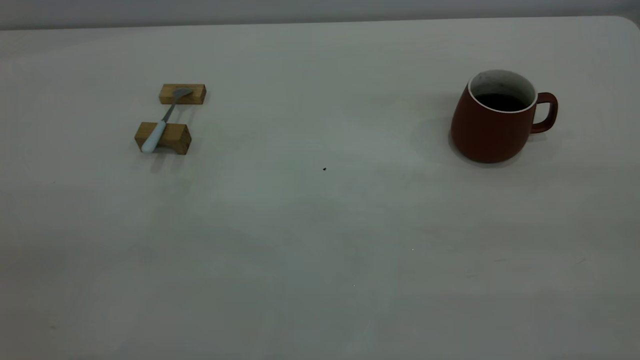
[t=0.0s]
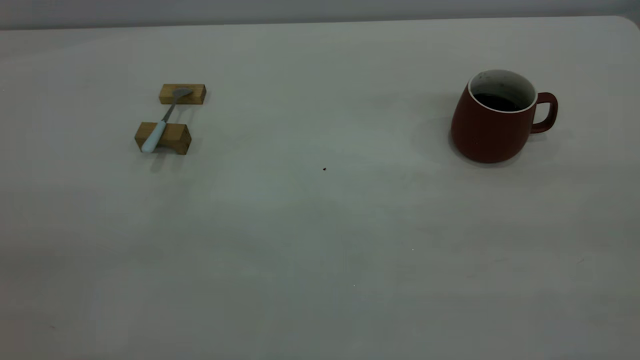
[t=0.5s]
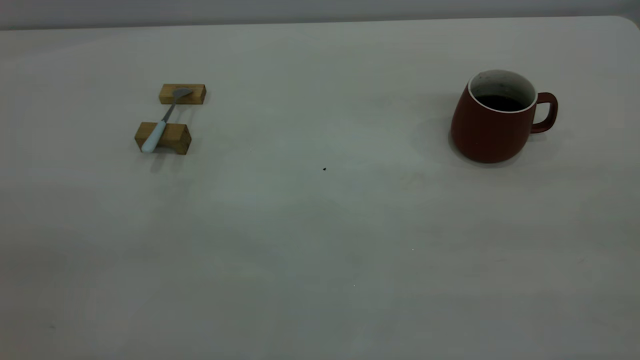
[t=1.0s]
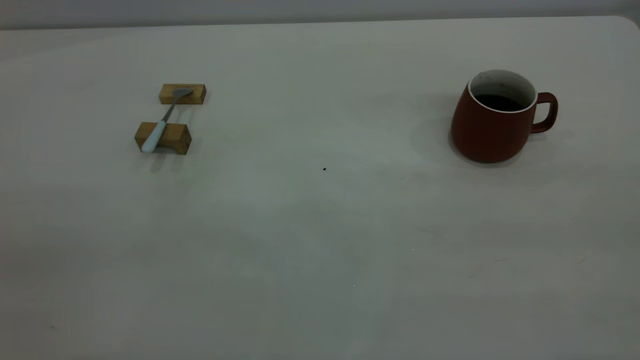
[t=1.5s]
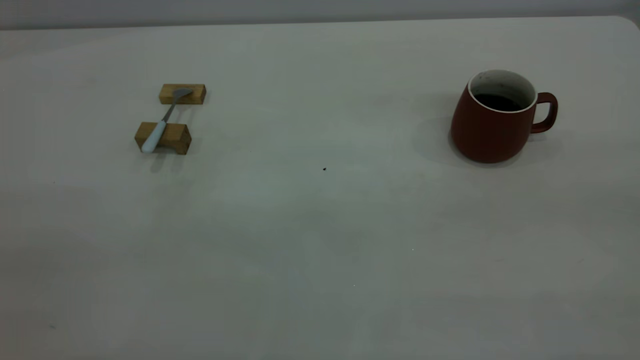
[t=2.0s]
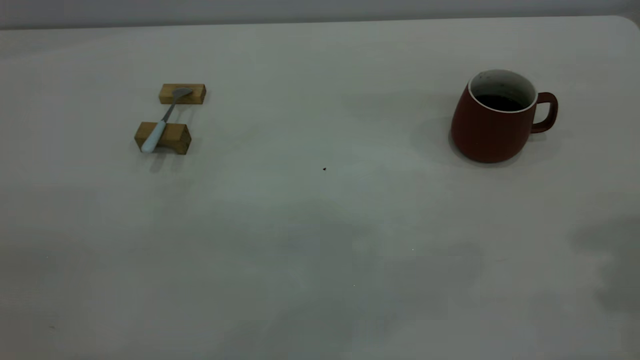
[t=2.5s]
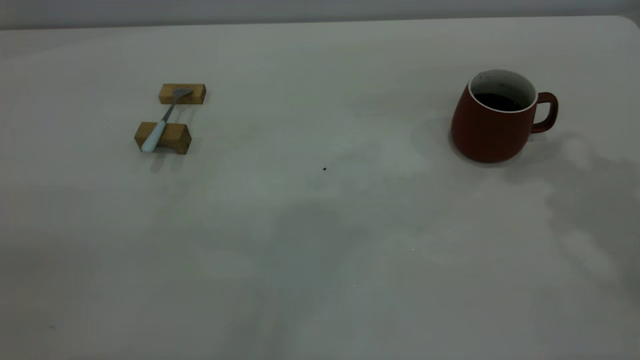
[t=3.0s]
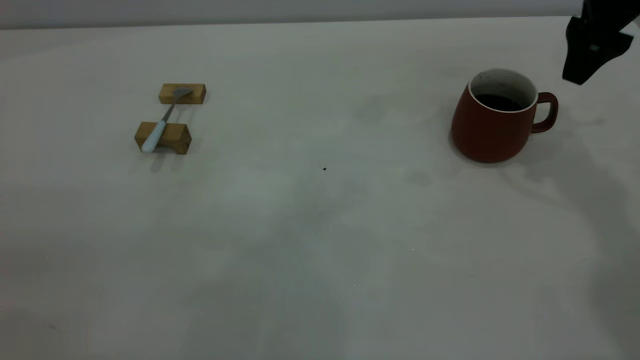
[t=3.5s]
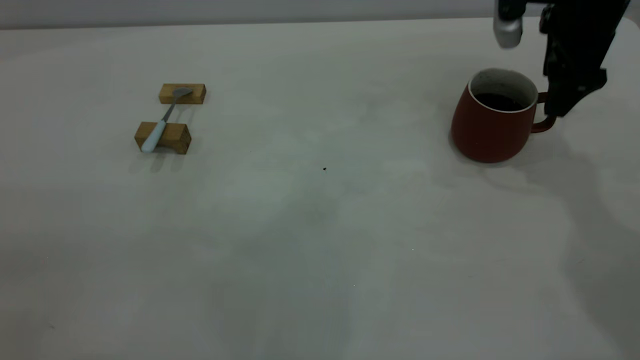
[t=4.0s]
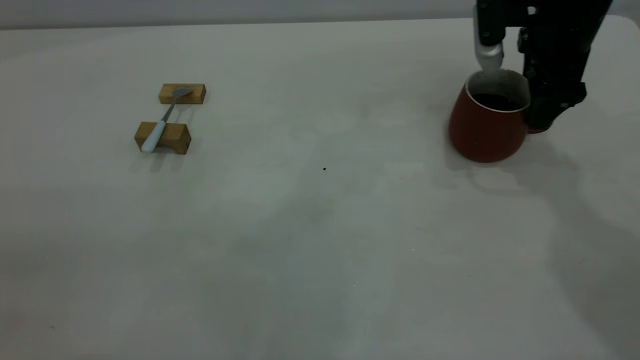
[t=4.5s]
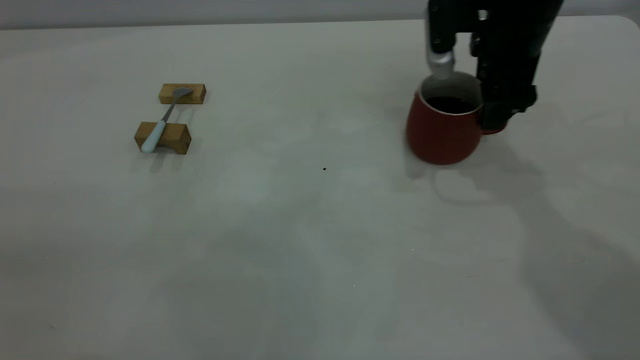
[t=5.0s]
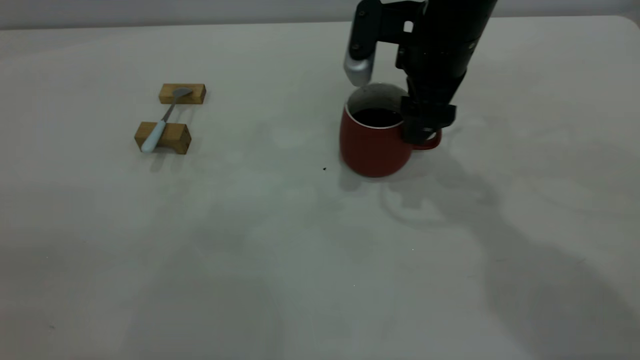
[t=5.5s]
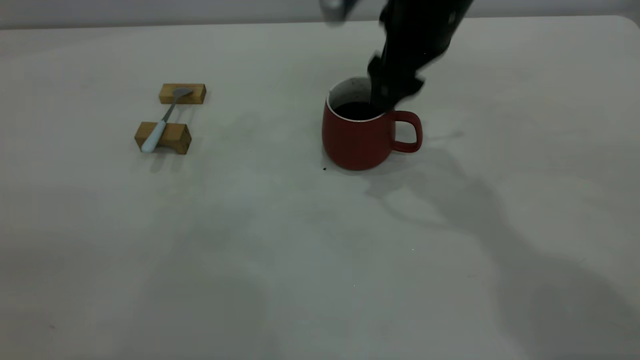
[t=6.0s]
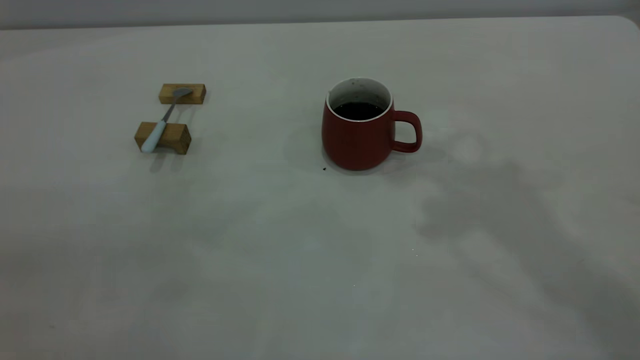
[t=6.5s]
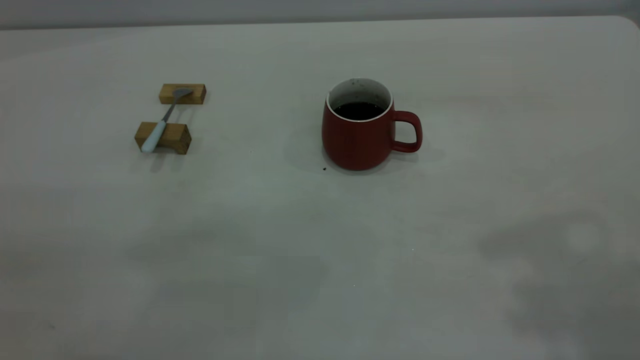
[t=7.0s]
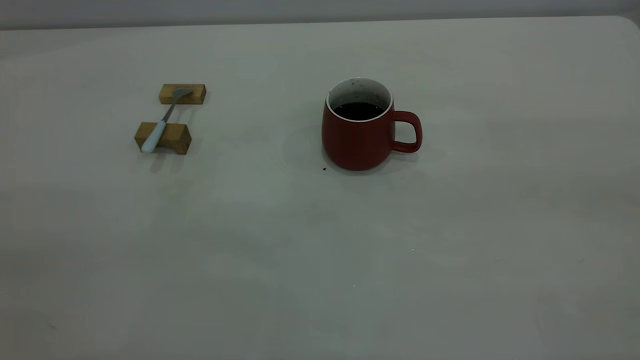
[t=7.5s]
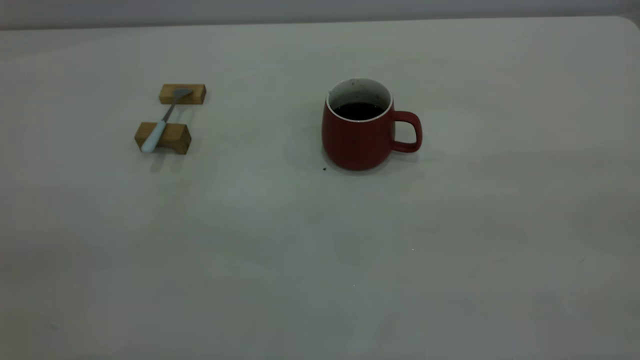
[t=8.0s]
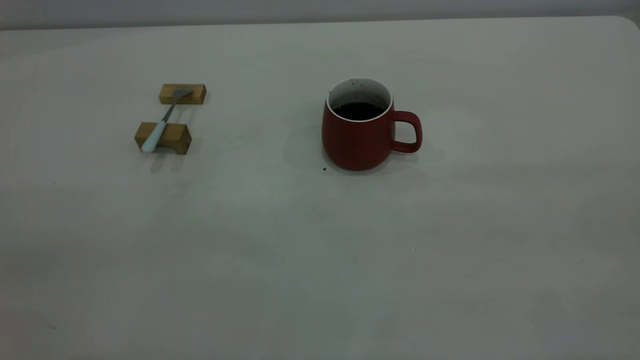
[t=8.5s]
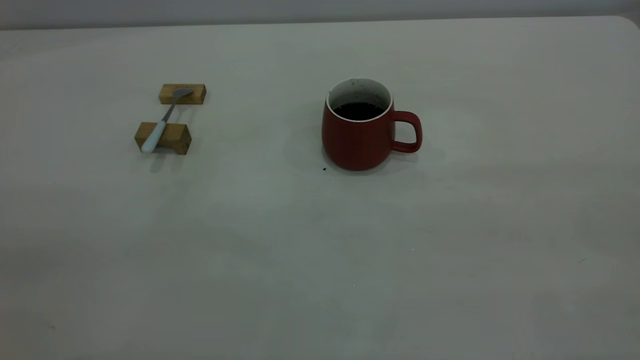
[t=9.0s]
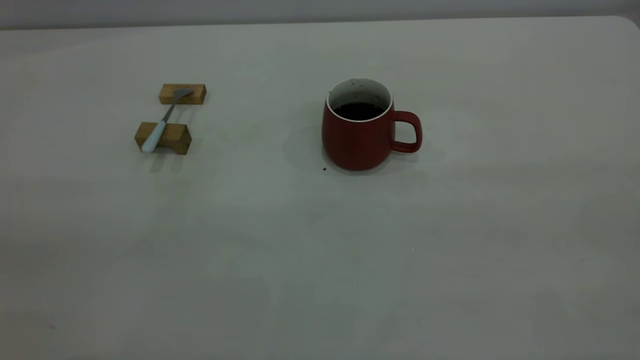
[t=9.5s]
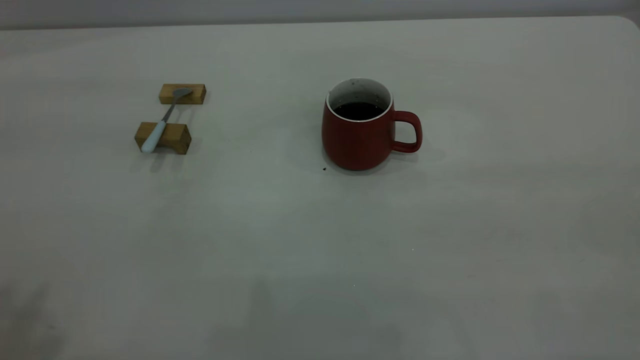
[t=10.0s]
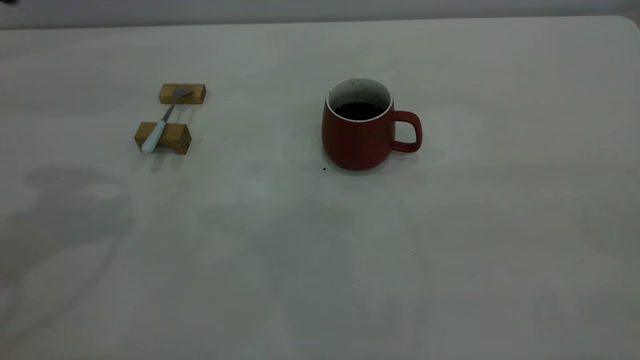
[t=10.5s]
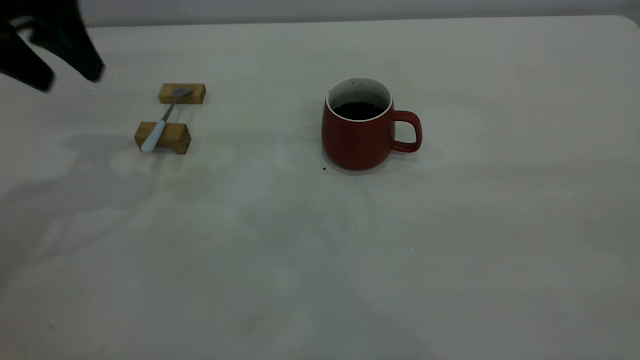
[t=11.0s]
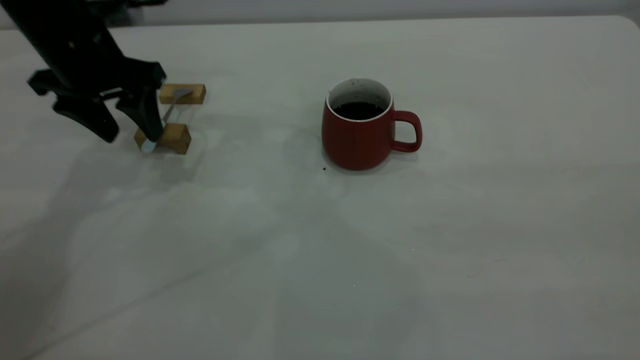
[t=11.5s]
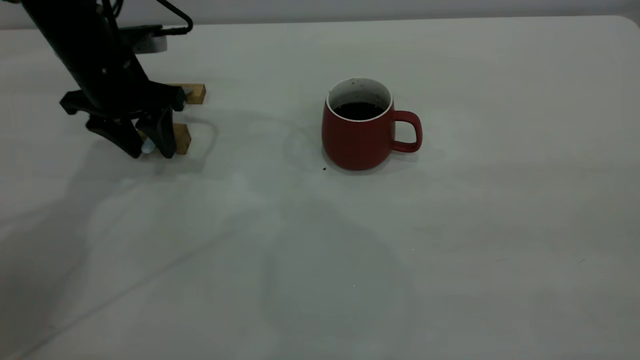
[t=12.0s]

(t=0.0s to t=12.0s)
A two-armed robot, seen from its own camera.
Step, t=0.0s - t=6.0s: Move the cup with coffee to the center of view.
t=2.0s - t=4.0s: The right gripper heads forward and downward, covering some 50 cm.
t=4.0s - t=6.0s: The right gripper shifts about 15 cm to the left.
t=6.0s - t=8.0s: The right gripper is displaced backward, to the right and upward by approximately 50 cm.
t=10.0s - t=12.0s: The left gripper moves downward and forward, about 40 cm.

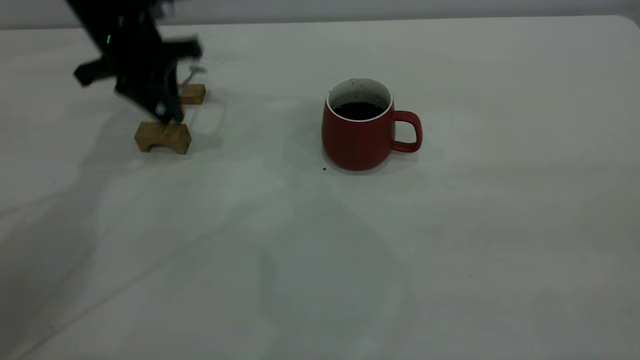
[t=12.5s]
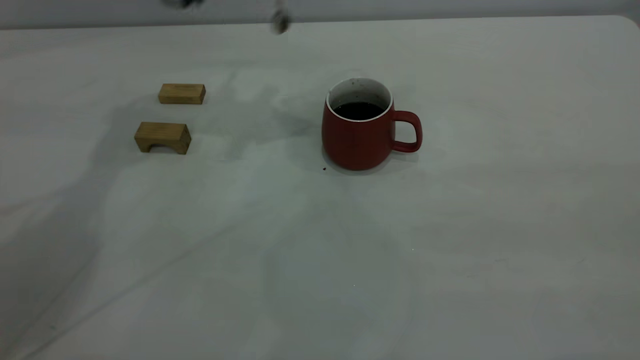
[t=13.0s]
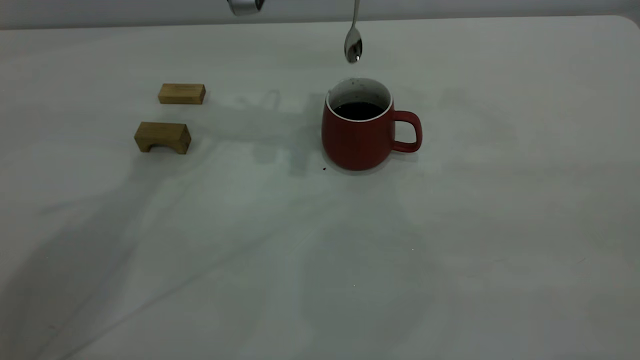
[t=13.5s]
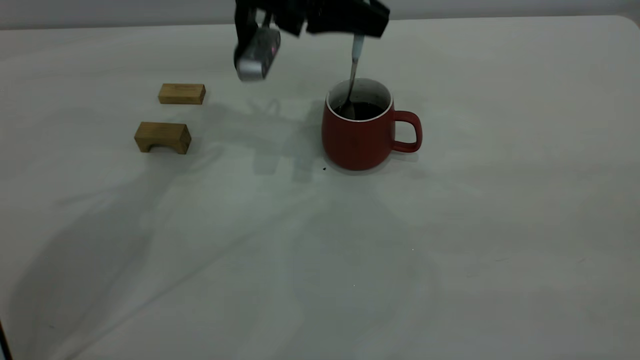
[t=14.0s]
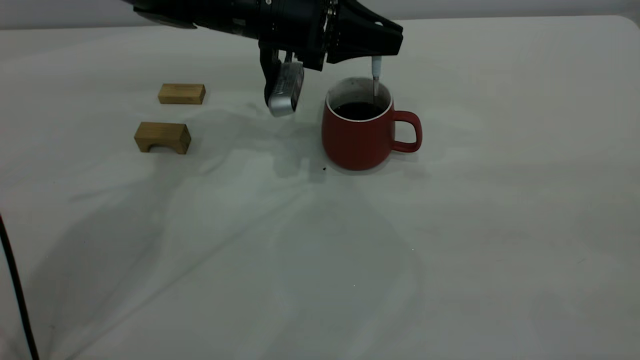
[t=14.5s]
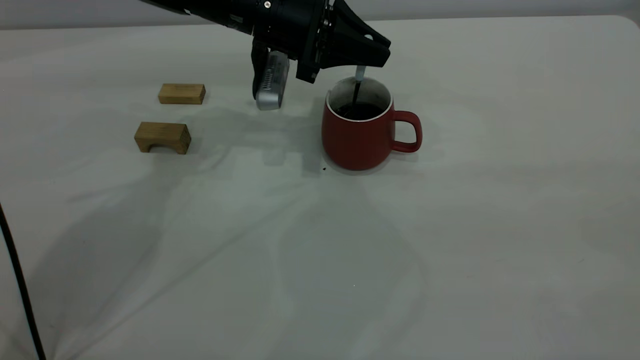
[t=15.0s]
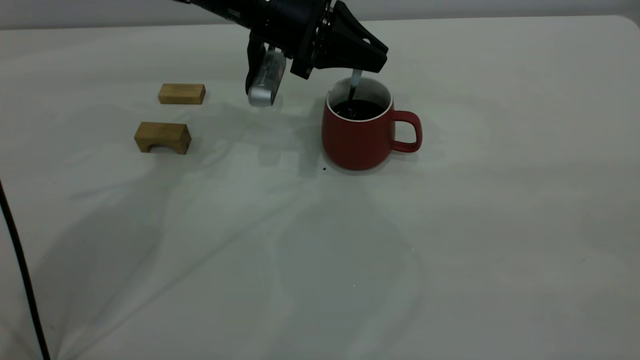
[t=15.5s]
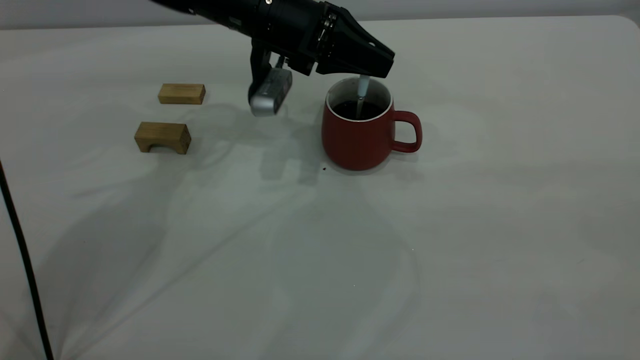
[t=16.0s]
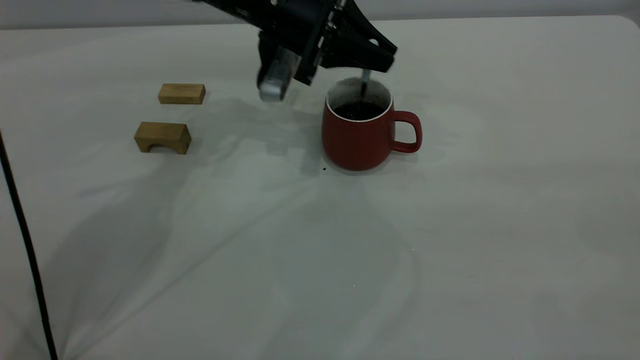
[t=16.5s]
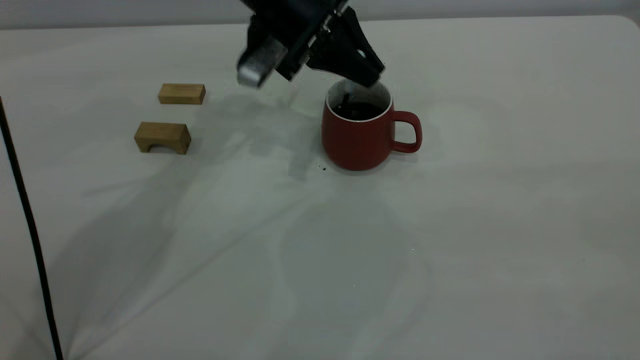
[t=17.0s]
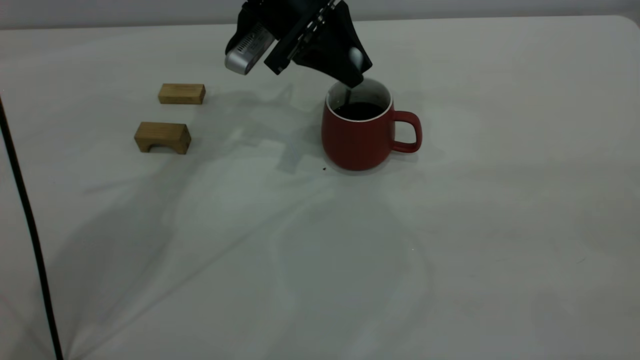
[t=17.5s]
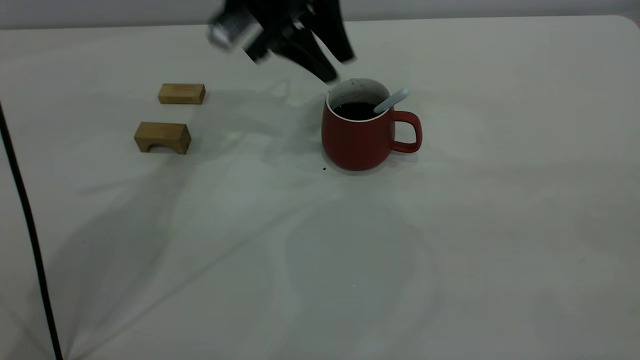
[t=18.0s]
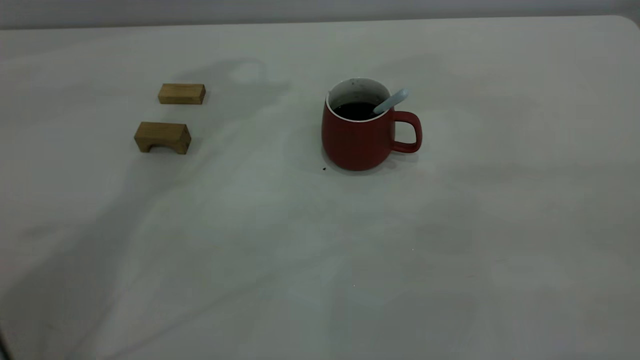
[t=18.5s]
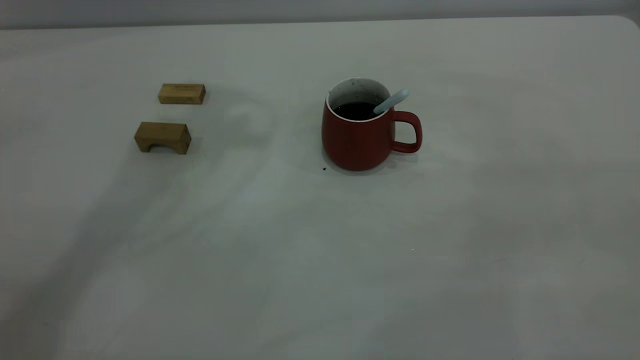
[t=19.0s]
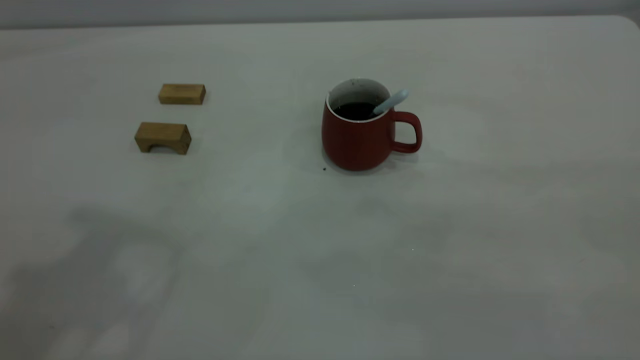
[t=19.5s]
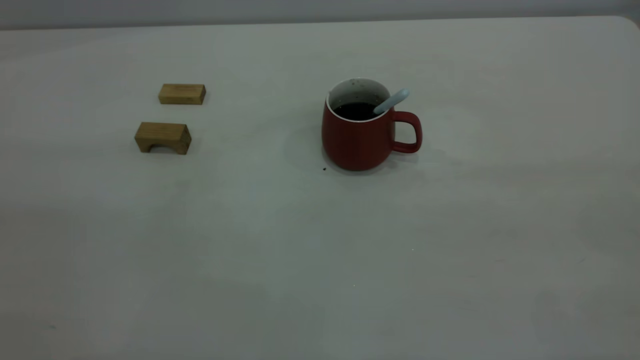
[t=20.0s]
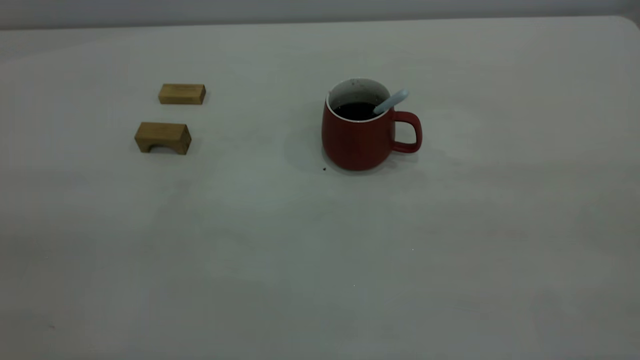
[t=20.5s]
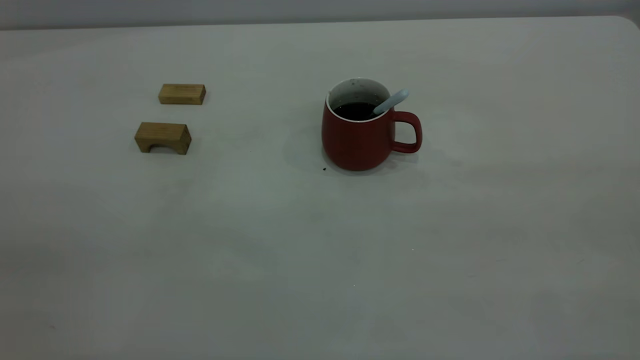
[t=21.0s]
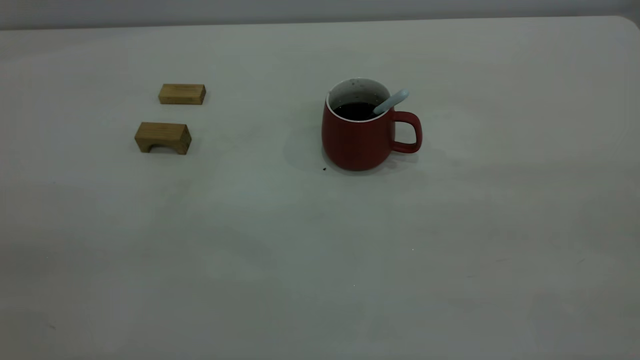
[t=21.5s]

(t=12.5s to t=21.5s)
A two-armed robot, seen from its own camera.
Step, t=13.0s - t=18.0s: Stir the coffee in the cup.
t=12.5s - t=14.5s: The left gripper goes about 15 cm to the right.
t=17.0s - t=19.5s: The left gripper shifts roughly 40 cm backward, upward and to the left, and opens.
